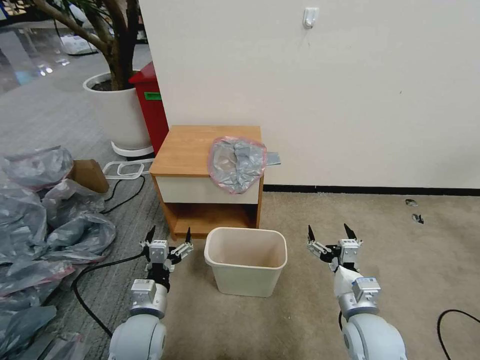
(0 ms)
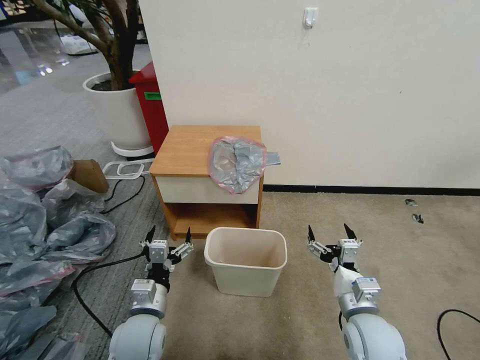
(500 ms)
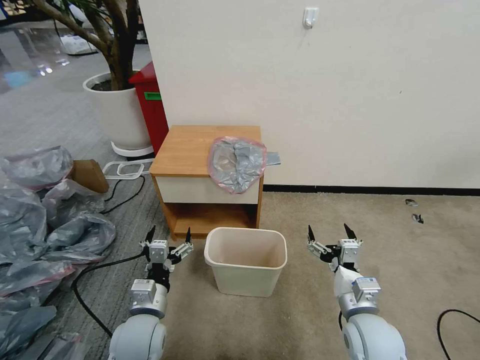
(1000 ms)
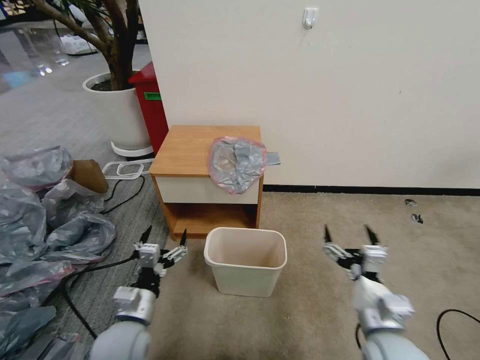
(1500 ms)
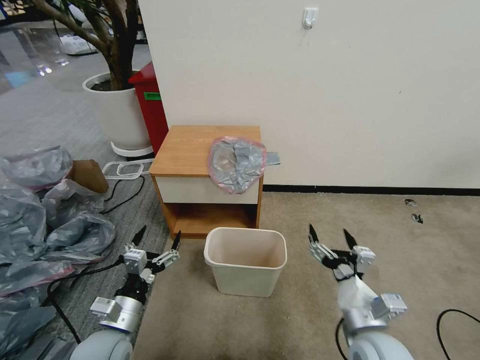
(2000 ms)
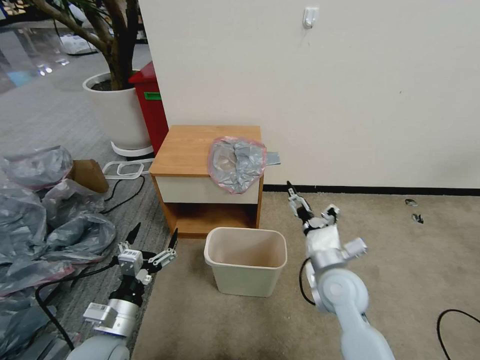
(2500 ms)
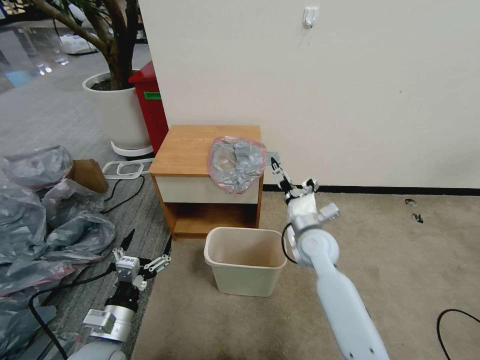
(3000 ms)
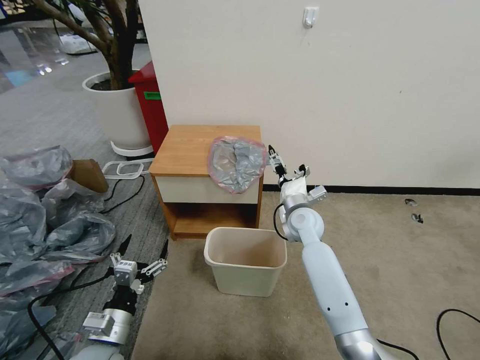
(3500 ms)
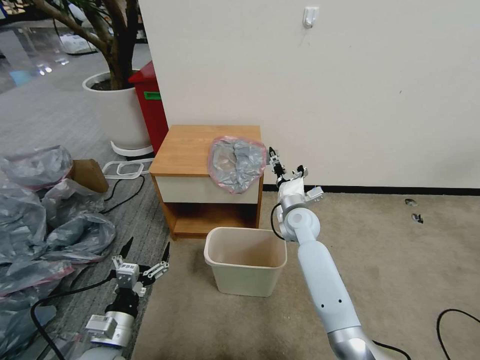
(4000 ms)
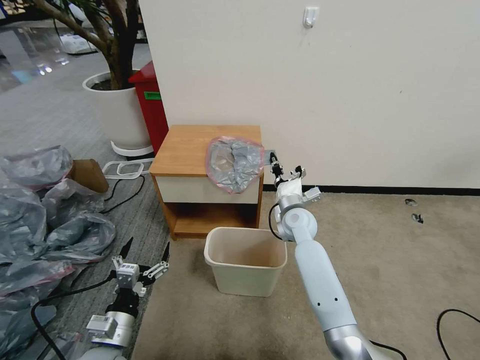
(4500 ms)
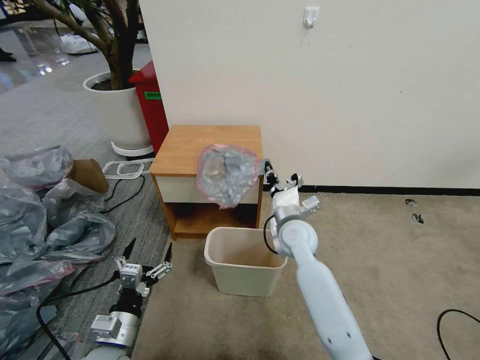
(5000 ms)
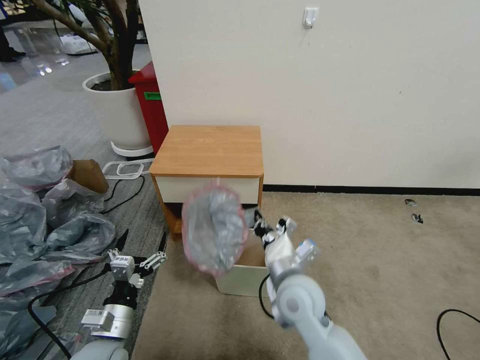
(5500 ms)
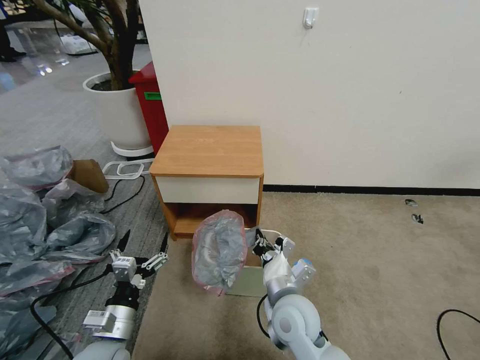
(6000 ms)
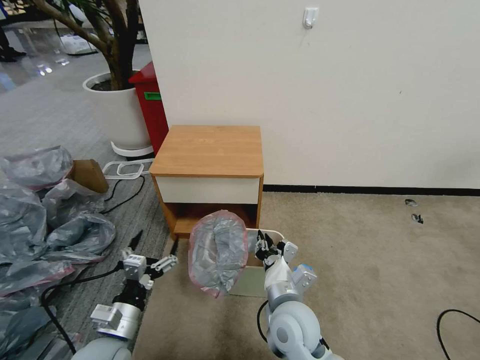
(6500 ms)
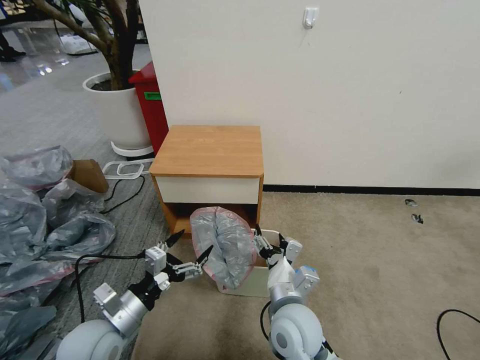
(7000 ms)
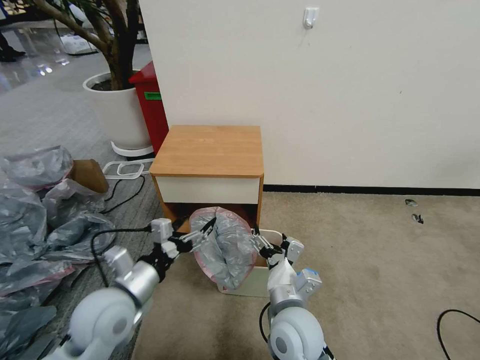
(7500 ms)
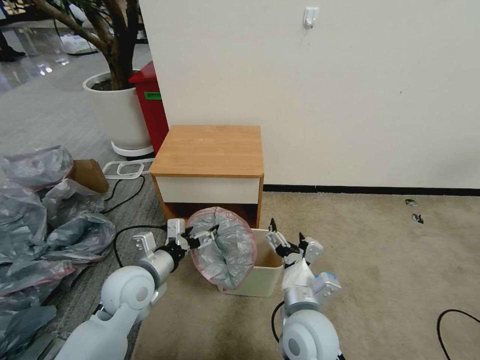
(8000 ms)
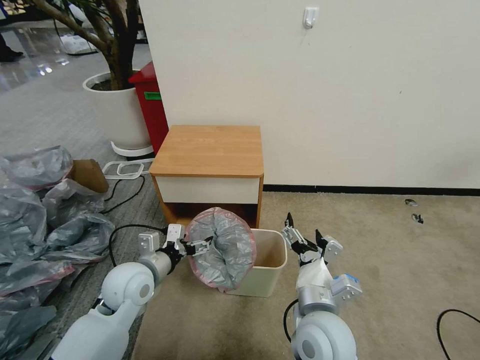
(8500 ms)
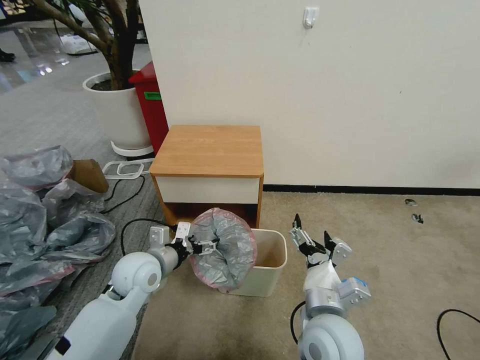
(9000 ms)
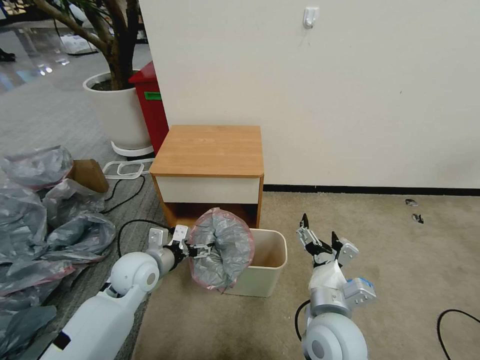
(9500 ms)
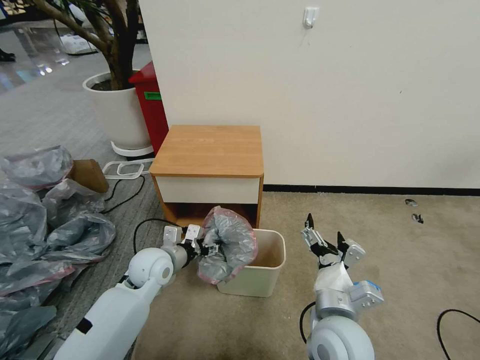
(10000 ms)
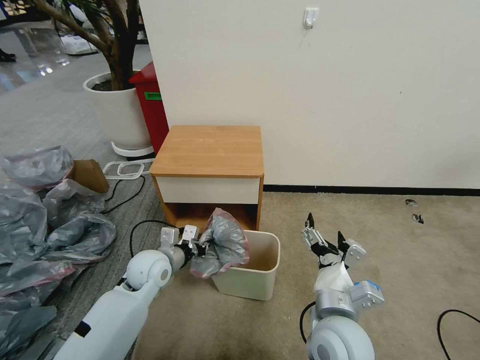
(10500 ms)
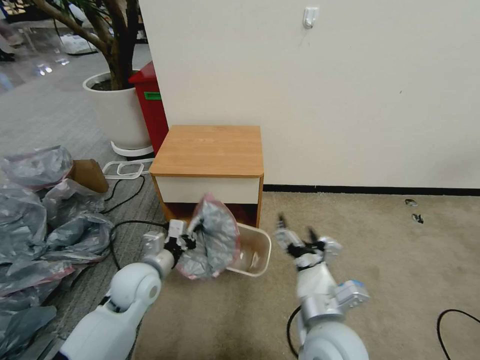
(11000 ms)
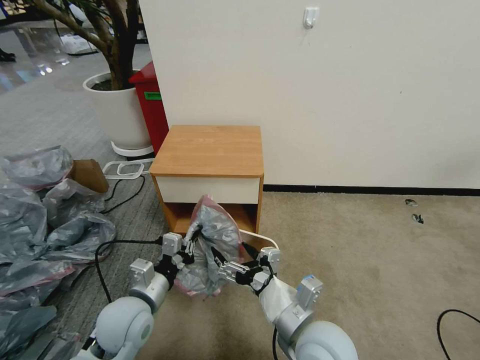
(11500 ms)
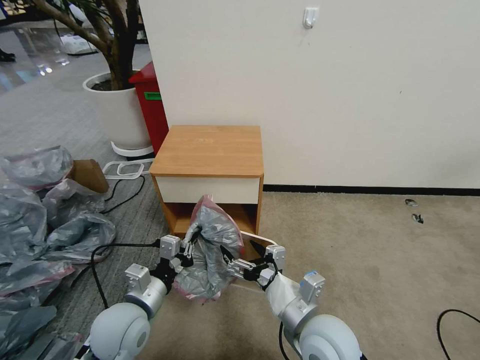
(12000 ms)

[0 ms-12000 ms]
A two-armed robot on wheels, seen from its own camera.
Task of the whole recording: Pick up the garbage bag from the table and place it over the trash can.
2000 ms to 4000 ms: The right gripper is displaced forward by some 30 cm, and closes its fingers.
4000 ms to 6000 ms: The right gripper travels backward by about 25 cm, and closes.
6000 ms to 8000 ms: The right gripper opens its fingers; the left gripper shifts approximately 15 cm forward and upward.
8000 ms to 10000 ms: The left gripper moves forward, roughly 5 cm.
10000 ms to 12000 ms: The left gripper travels backward by roughly 15 cm, and closes up.

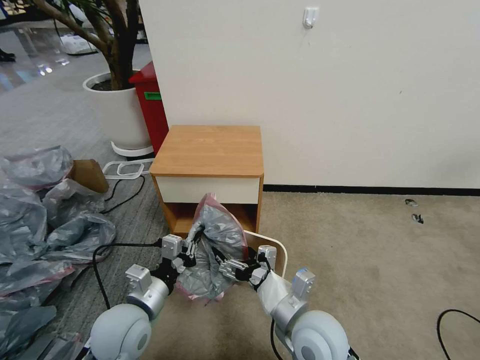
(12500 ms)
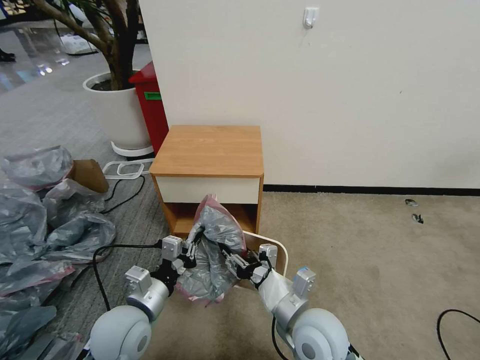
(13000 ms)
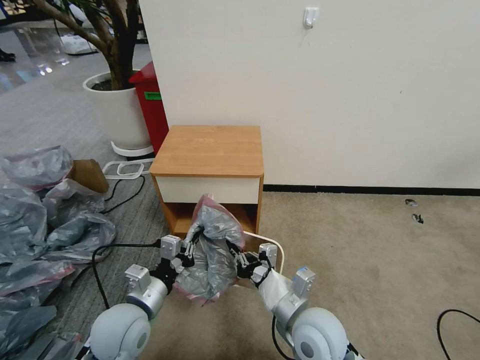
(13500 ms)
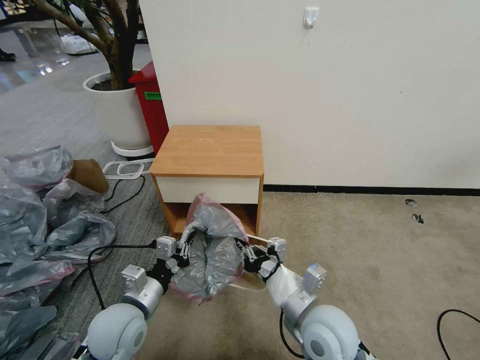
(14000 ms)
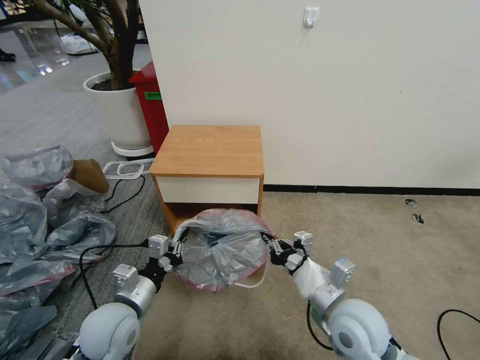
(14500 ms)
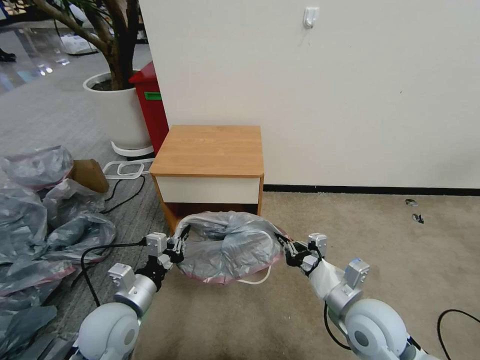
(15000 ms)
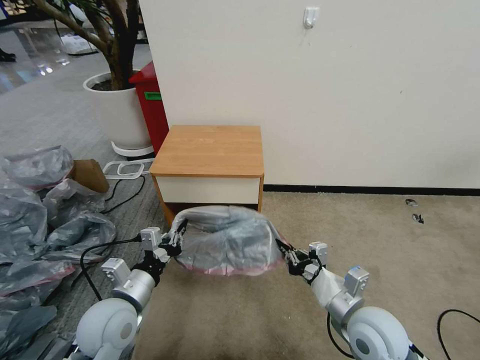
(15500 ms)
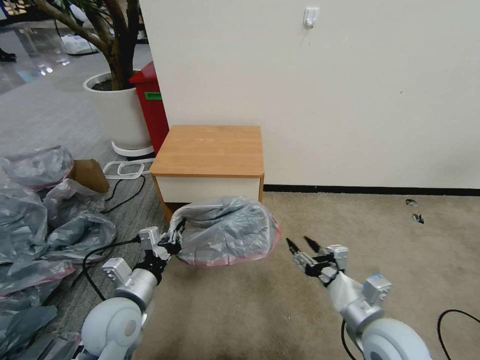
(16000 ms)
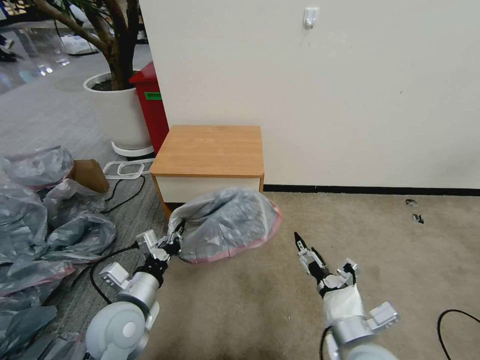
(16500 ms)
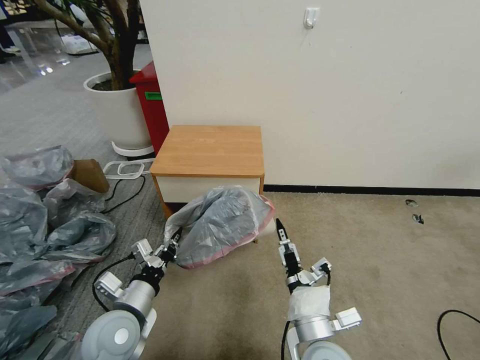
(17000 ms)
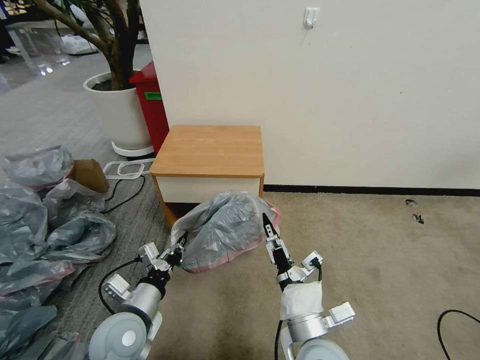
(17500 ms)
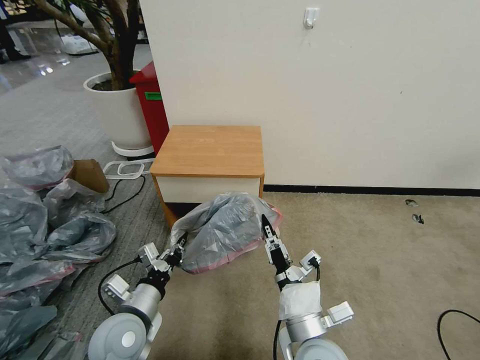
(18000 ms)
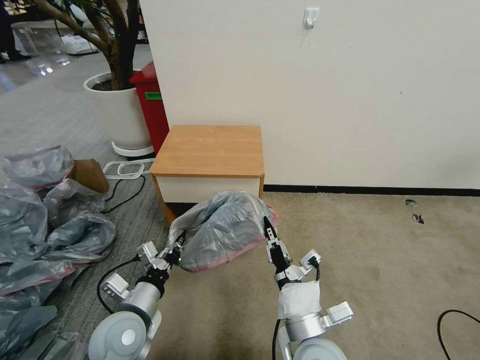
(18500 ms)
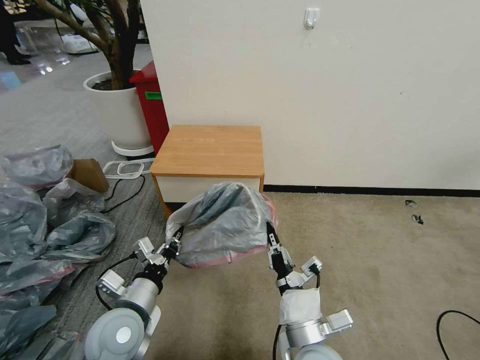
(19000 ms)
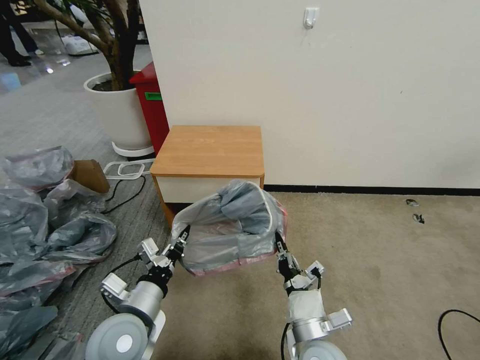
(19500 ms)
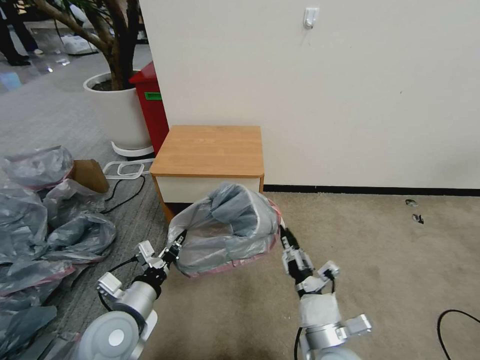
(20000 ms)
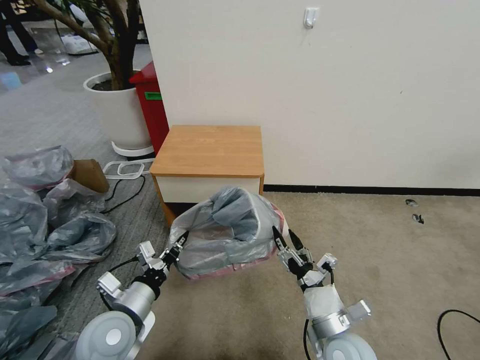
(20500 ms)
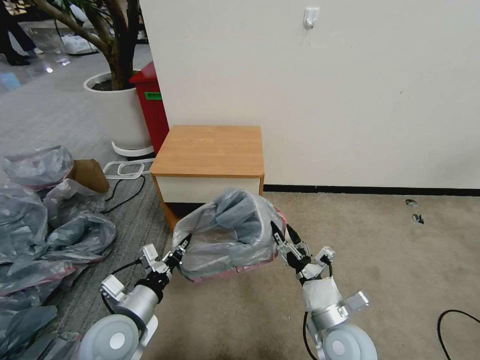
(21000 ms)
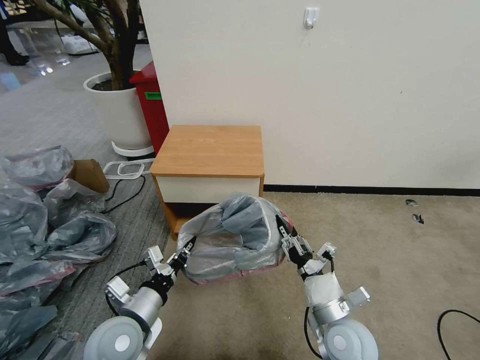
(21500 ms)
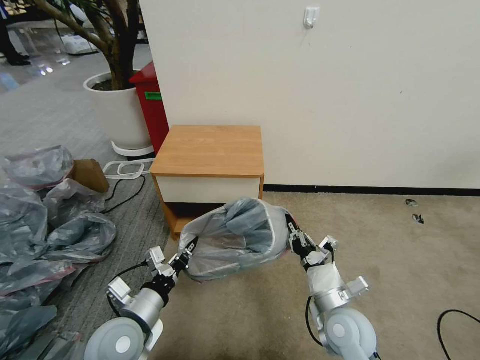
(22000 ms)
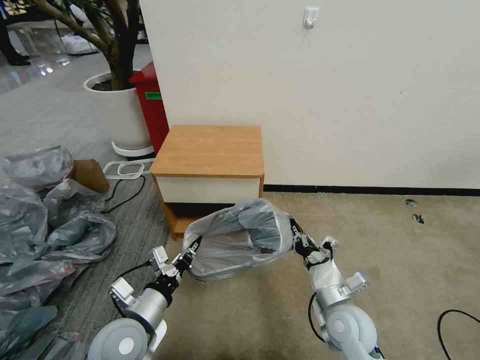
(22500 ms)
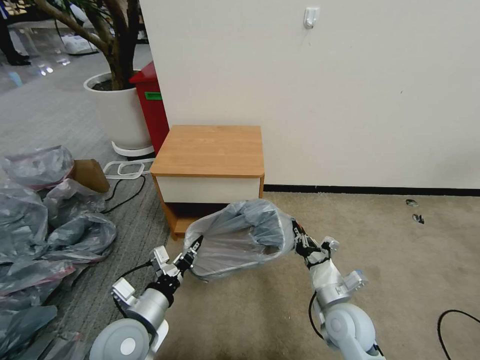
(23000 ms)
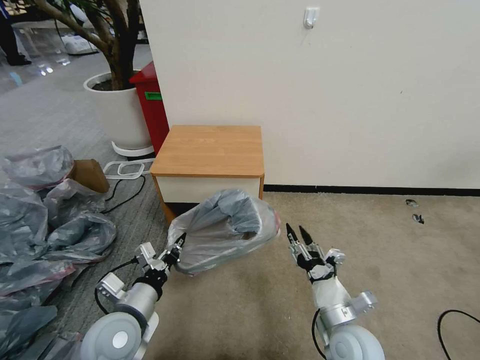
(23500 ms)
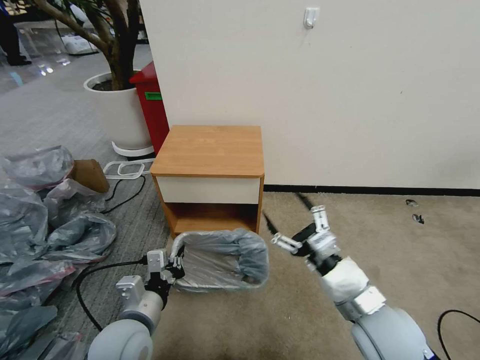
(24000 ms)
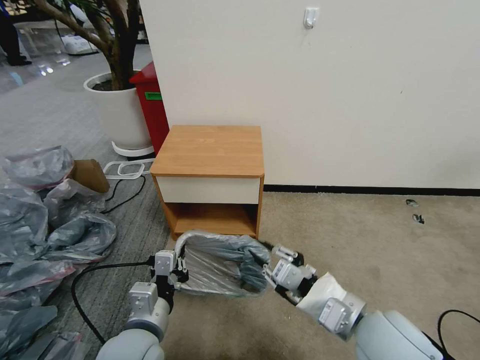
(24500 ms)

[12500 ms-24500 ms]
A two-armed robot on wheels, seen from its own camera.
Task of the whole recording: Pick up the garbage bag from the table and place it over the trash can.
12500 ms to 14500 ms: The right gripper shifts about 5 cm to the right, and closes up.
14500 ms to 16500 ms: The right gripper heads backward, covering some 5 cm, and opens its fingers.
16500 ms to 18500 ms: The right gripper goes some 10 cm to the left, and closes up.
18500 ms to 20500 ms: The right gripper shifts about 10 cm to the right and downward, and opens.
20500 ms to 22500 ms: The right gripper shifts about 5 cm forward, and closes up.
22500 ms to 24500 ms: The left gripper shifts by approximately 5 cm; the right gripper heads upward, covering roughly 15 cm, and opens.

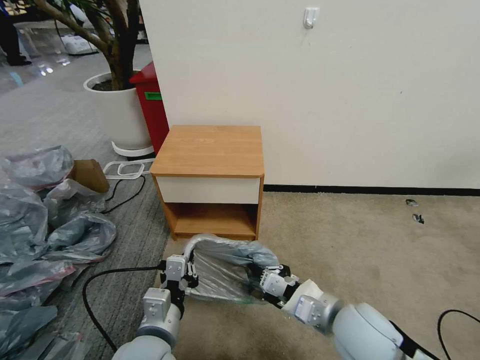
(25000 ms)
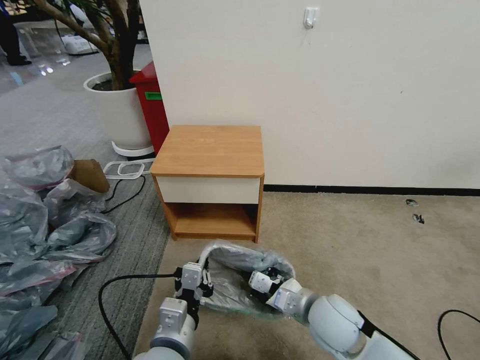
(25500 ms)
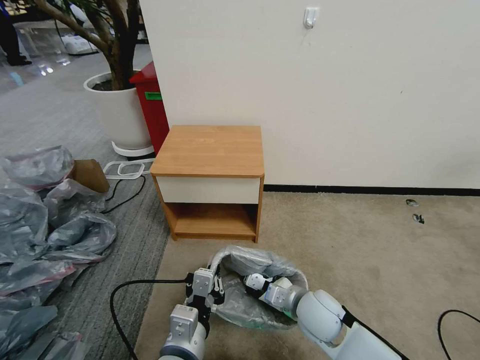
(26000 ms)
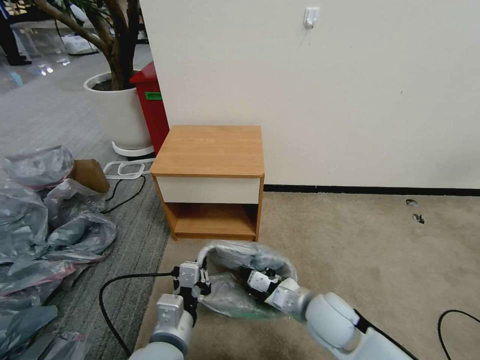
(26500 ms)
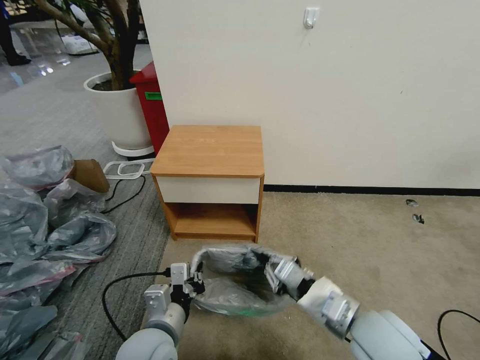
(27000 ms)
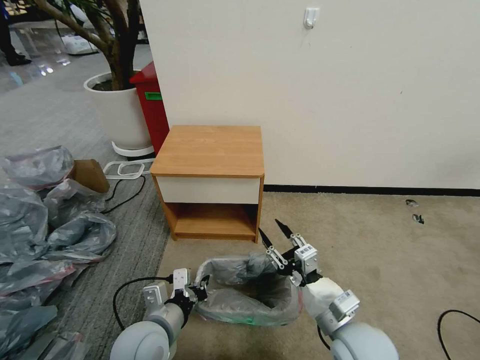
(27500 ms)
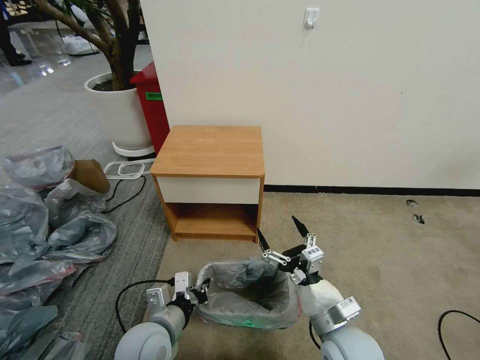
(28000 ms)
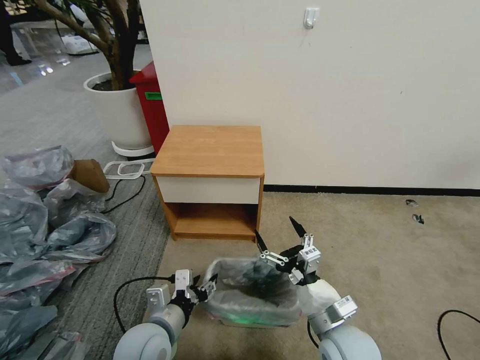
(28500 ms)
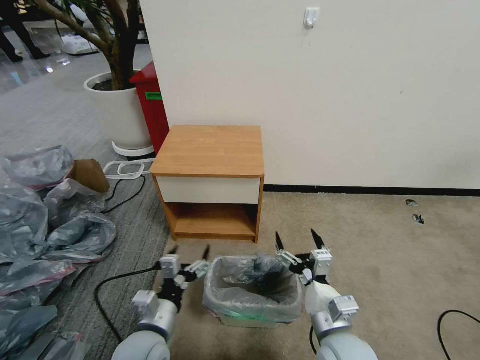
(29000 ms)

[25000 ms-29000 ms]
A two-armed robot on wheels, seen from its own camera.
Task of the whole recording: Pick up the garbage bag from the table and place it over the trash can.
25000 ms to 27000 ms: The right gripper travels downward and back again, some 10 cm each way.
27000 ms to 29000 ms: The left gripper shifts by roughly 5 cm, and opens, while the right gripper travels downward by about 10 cm, and opens its fingers.
